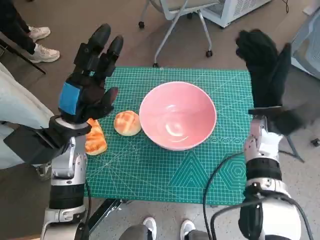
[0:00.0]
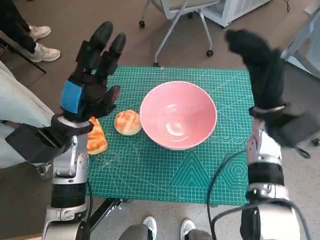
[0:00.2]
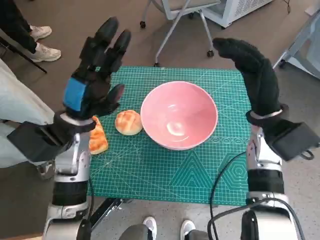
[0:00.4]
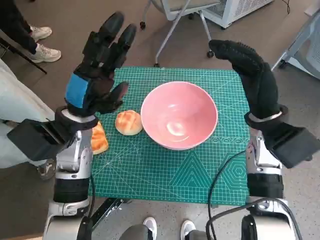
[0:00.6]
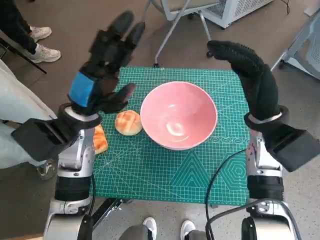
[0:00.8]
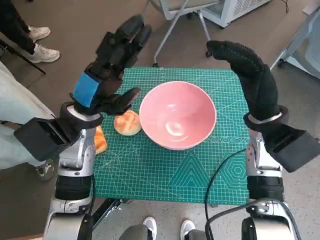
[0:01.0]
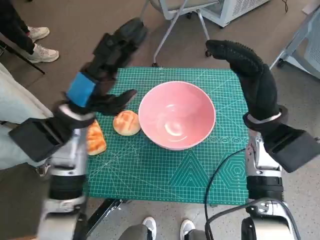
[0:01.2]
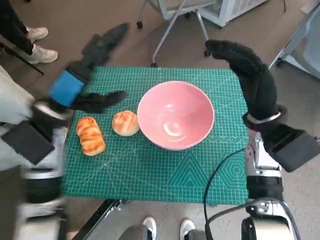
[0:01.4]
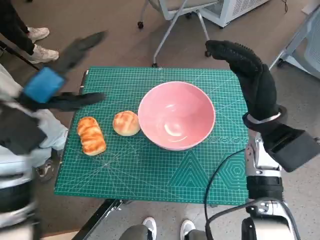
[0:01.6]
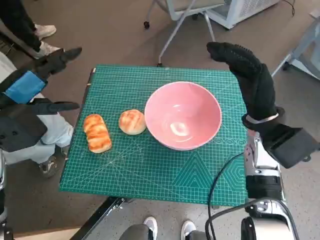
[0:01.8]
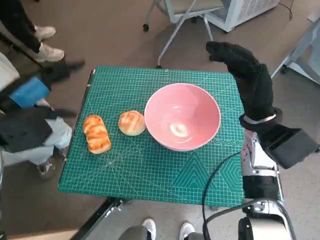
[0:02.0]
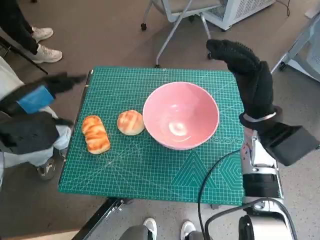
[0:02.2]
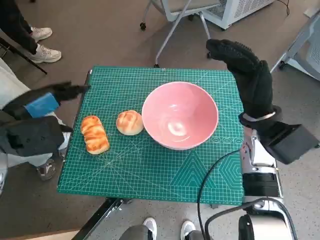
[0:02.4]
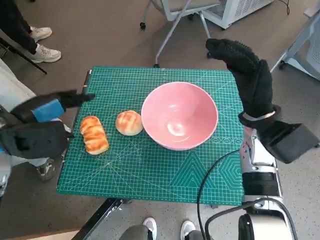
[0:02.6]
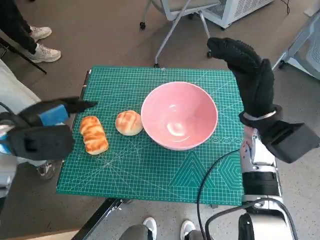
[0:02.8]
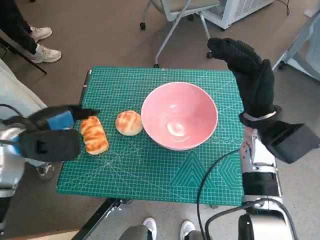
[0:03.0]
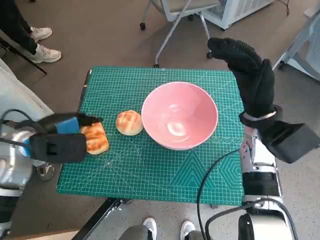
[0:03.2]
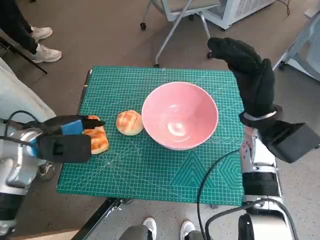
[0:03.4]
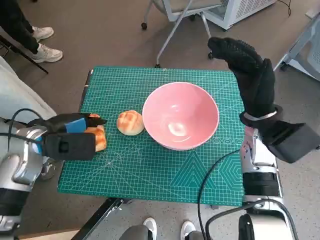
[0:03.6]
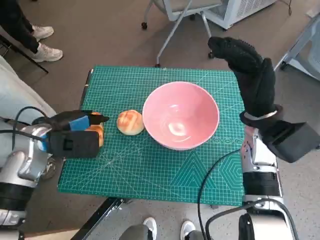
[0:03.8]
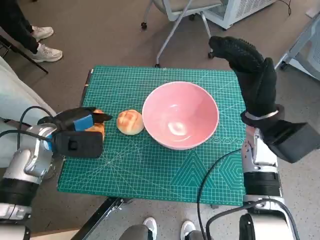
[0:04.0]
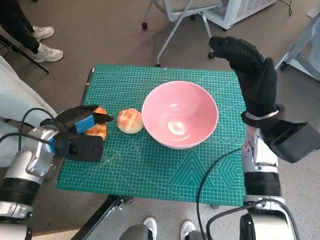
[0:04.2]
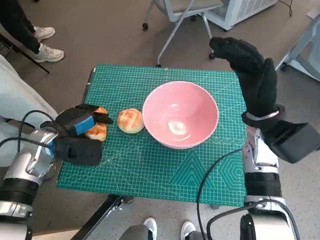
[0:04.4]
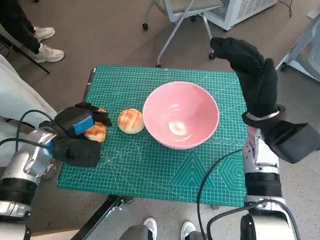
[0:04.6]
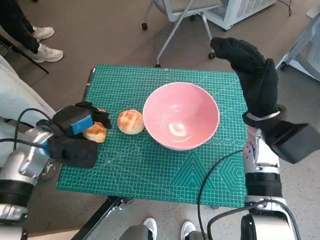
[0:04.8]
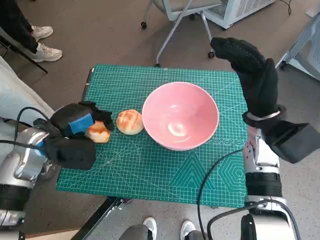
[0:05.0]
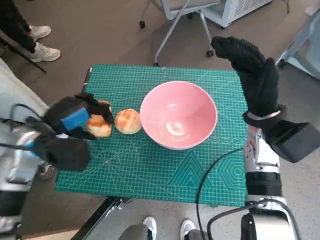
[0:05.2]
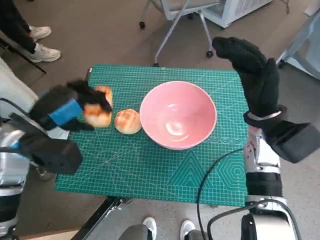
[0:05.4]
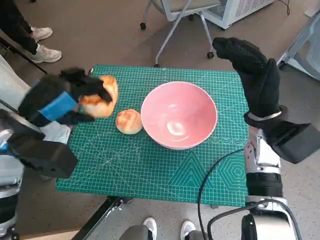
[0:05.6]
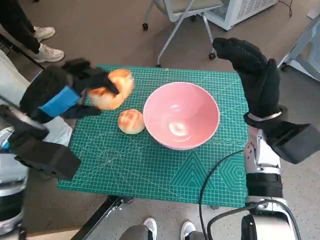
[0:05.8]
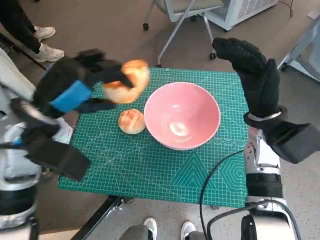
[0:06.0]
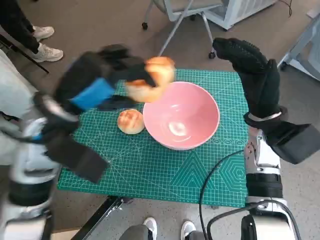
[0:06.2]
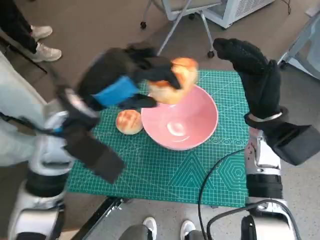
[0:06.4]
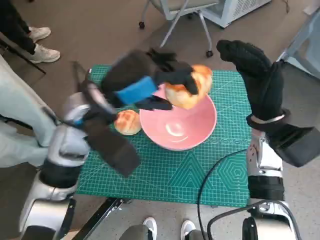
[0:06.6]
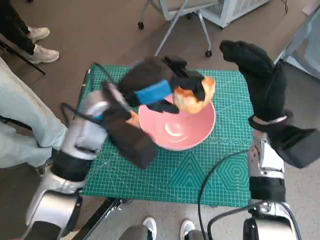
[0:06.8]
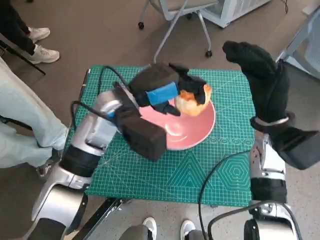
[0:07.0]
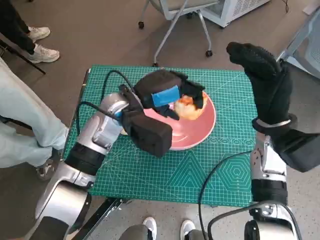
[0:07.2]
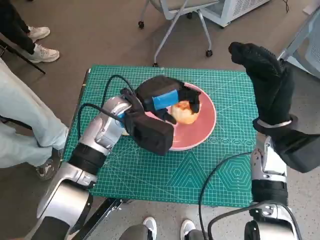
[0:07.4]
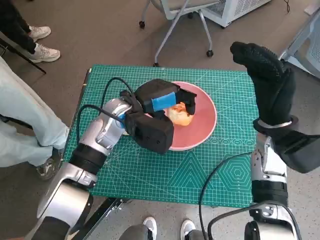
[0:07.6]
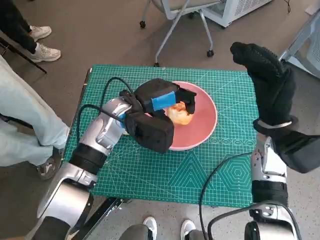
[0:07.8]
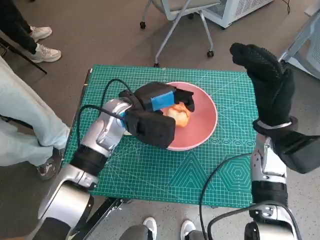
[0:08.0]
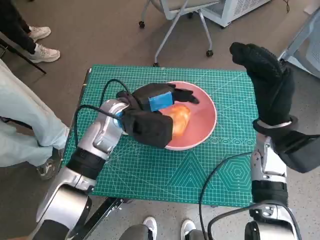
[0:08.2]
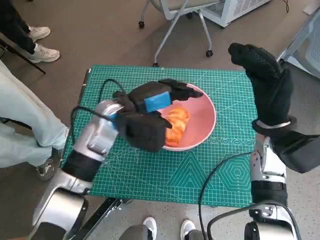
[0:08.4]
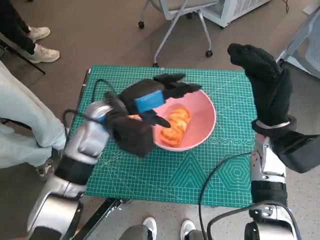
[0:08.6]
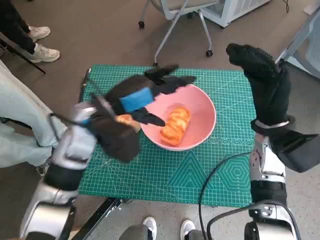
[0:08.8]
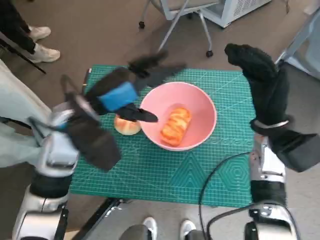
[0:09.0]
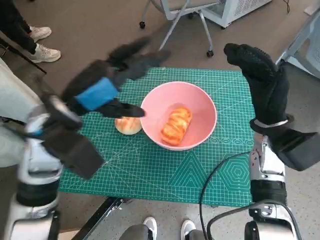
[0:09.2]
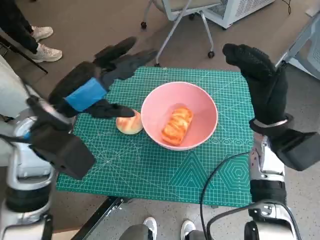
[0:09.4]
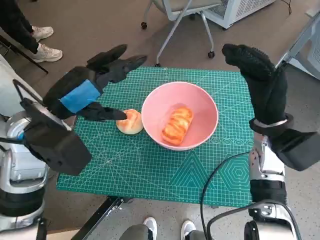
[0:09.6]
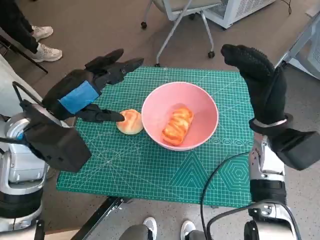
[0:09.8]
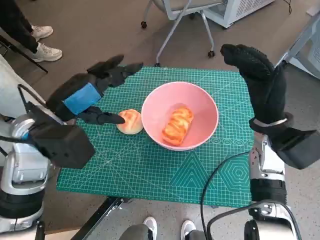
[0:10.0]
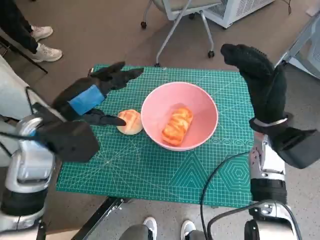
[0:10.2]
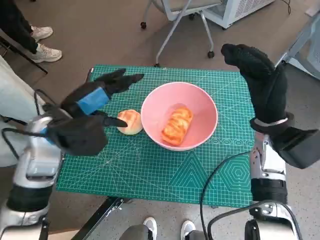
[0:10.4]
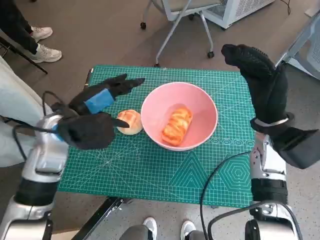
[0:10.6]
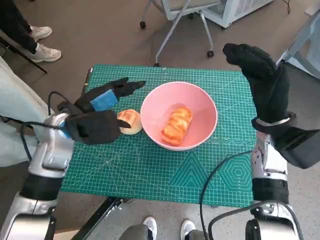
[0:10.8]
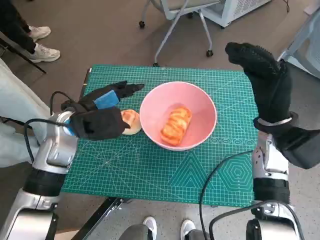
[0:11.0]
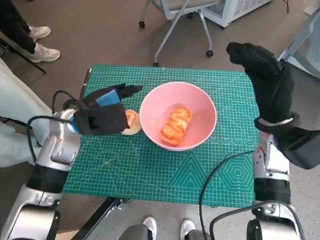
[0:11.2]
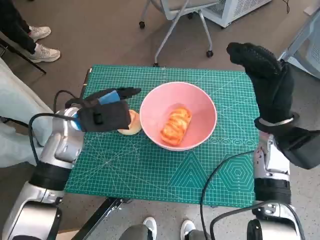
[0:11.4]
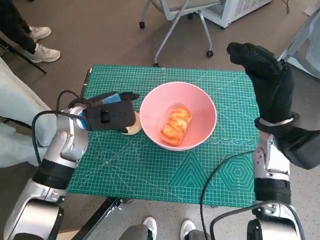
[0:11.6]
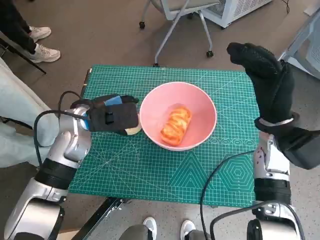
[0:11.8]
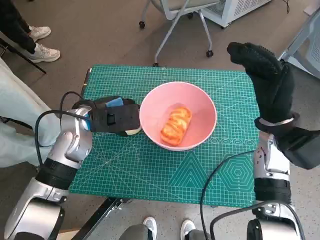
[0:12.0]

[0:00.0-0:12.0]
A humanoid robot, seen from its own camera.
Task of the whole recording: Push the bowl into the center of the table and put the bread into the bowl.
Step, 0:00.0 to 0:04.4: Grasp the long bread with left hand.
Step, 0:04.6 to 0:08.6: Place the long bread in pink bowl with left hand.
0:00.0 to 0:01.6: The right hand moves approximately 5 cm. The left hand is displaced upward by about 5 cm.
0:01.6 to 0:03.0: The left hand ends up approximately 5 cm from where it was.
0:03.0 to 0:04.4: The left hand moves downward, roughly 5 cm.
0:04.4 to 0:06.0: The left hand goes approximately 10 cm upward.
0:06.0 to 0:07.6: The left hand is displaced to the right, forward and downward by roughly 15 cm.
0:07.6 to 0:09.0: The left hand shifts about 10 cm to the left and upward.
0:09.0 to 0:10.4: The left hand ends up approximately 5 cm from where it was.
0:10.4 to 0:12.0: The left hand changes place by approximately 5 cm.

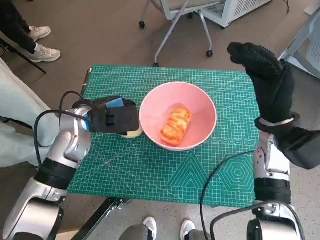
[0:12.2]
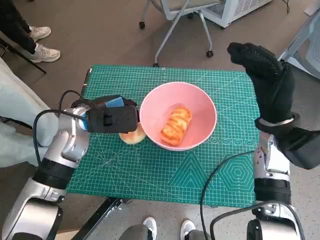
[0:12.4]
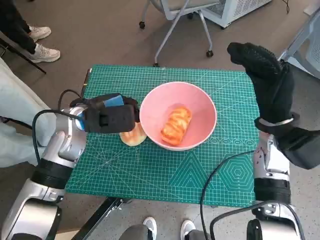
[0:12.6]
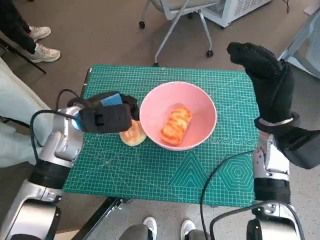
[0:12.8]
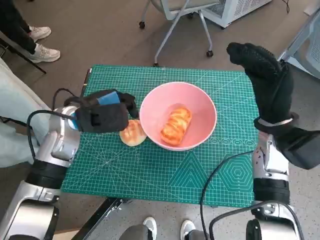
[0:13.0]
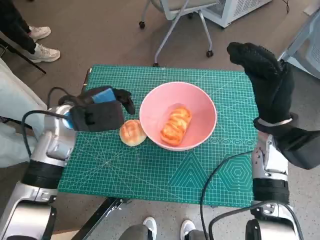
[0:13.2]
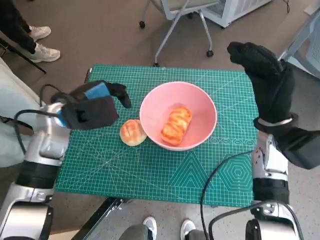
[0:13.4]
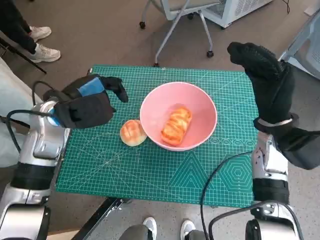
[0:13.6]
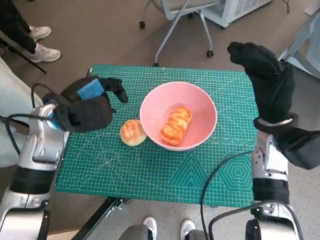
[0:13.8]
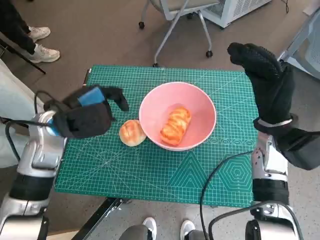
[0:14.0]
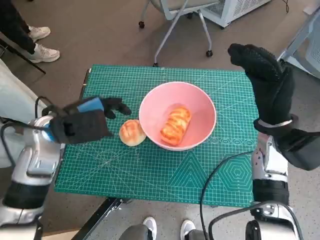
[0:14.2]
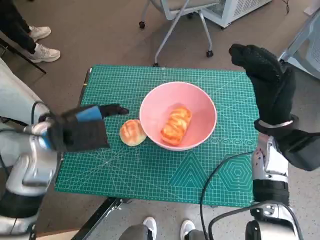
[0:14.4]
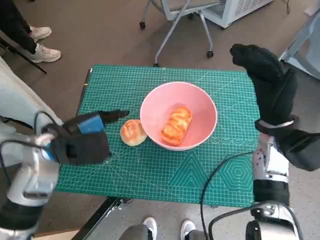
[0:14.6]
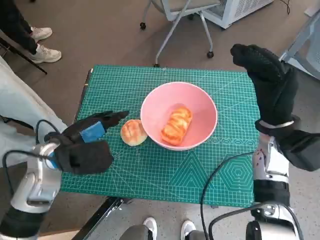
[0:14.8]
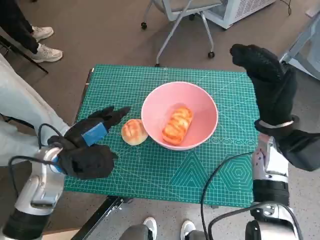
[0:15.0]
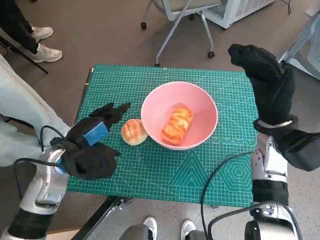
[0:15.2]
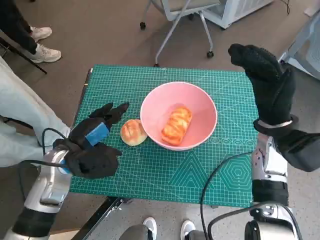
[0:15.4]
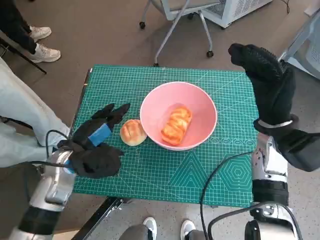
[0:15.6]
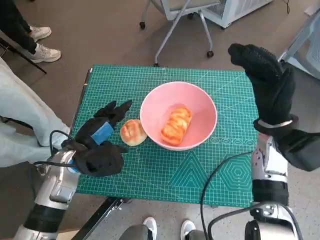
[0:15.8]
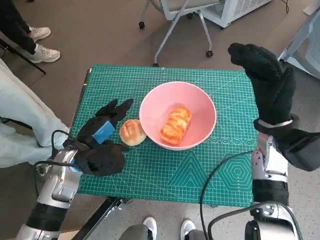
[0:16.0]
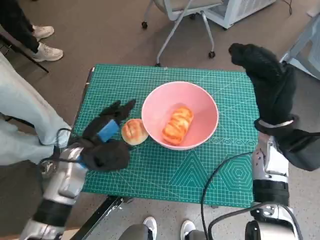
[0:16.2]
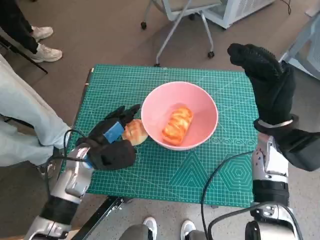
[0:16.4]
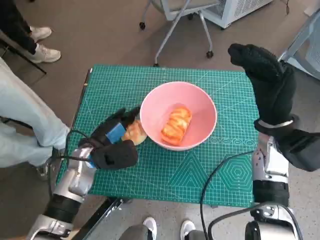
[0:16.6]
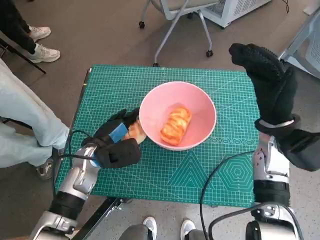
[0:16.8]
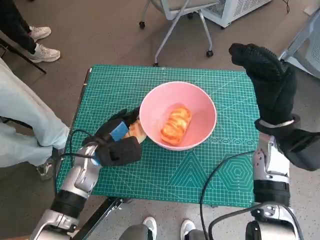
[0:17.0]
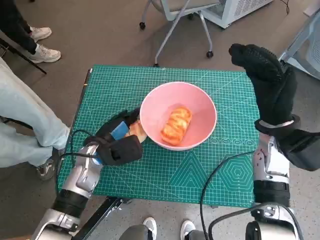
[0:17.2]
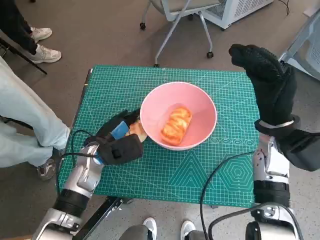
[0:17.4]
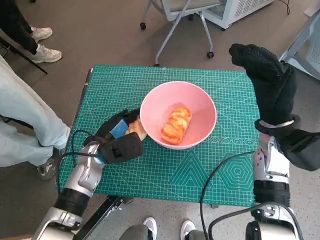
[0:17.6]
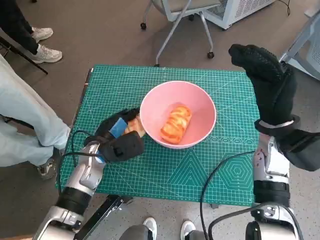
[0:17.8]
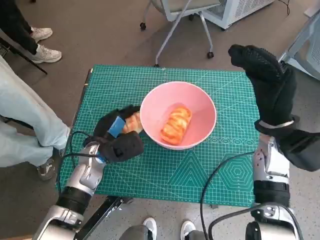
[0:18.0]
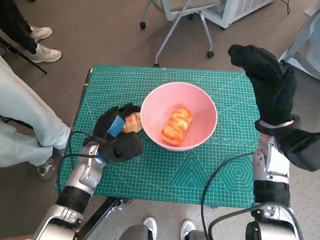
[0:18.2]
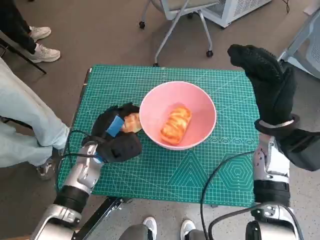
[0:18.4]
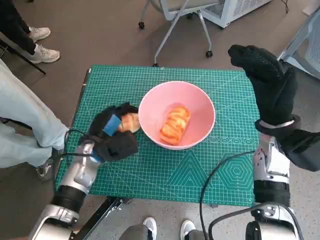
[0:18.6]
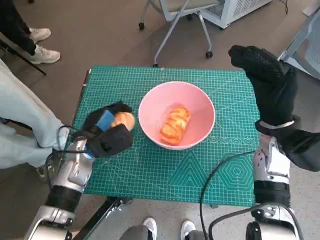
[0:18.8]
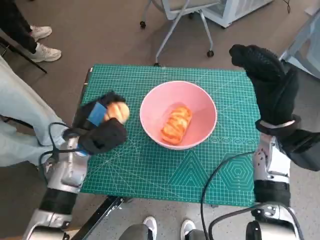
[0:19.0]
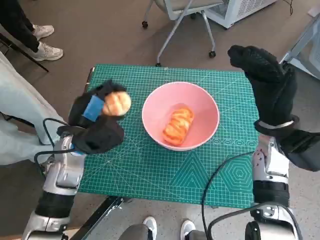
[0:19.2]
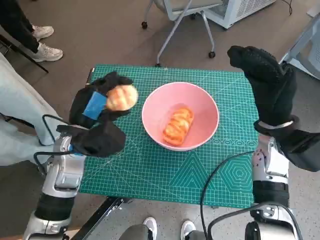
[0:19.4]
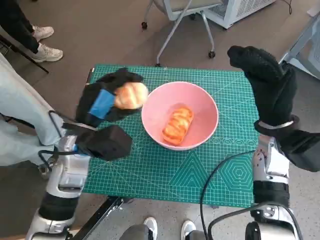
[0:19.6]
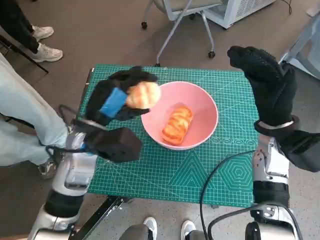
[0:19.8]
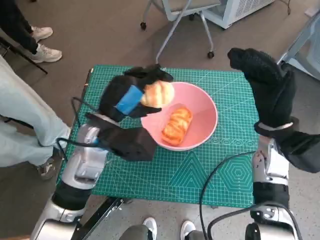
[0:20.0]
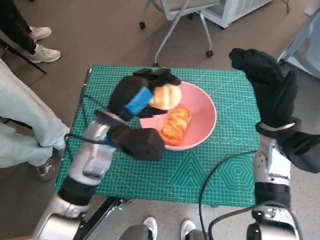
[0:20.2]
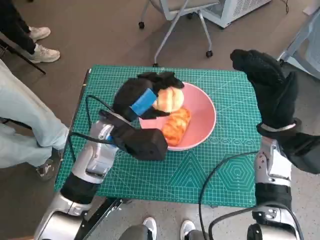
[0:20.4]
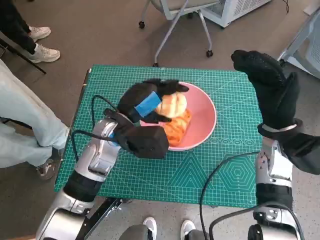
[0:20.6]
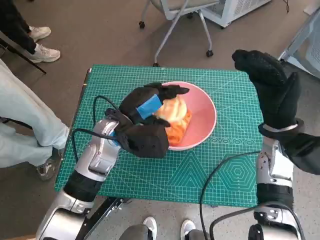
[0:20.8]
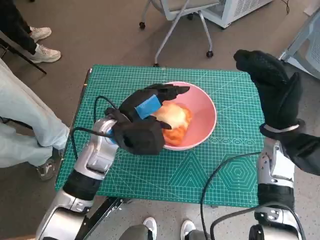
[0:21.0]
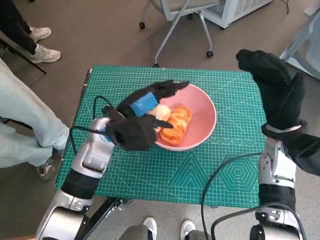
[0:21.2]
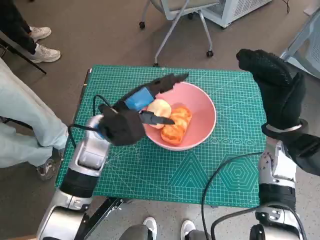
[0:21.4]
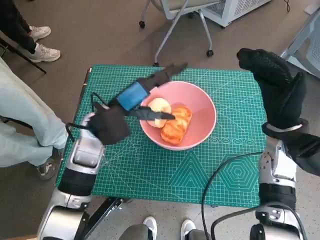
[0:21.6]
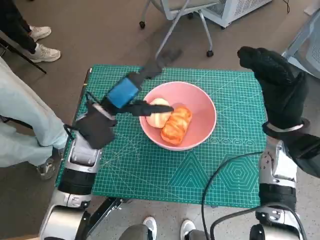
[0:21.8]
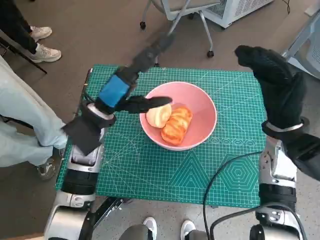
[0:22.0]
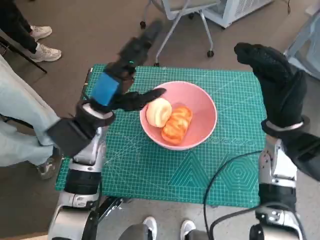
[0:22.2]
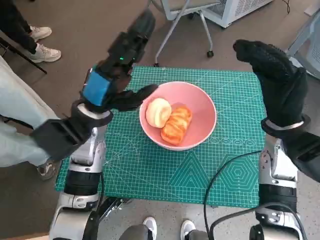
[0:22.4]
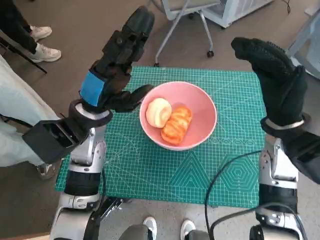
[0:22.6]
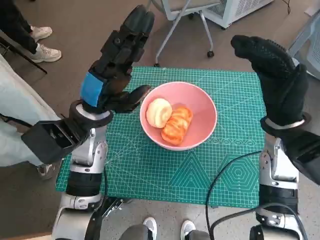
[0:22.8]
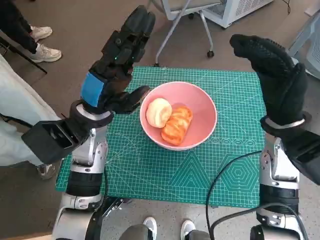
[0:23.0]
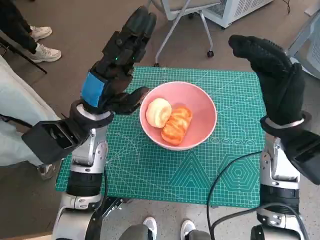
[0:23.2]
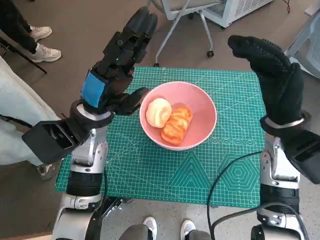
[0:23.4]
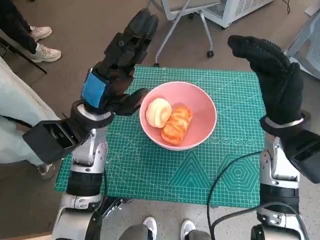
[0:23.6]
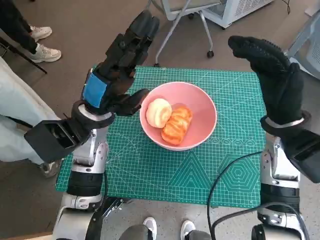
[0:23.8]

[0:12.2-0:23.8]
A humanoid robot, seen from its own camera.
Task of the whole recording: Push the bowl into the center of the table and put the bread into the bowl.
Step, 0:12.2 to 0:18.0: Grasp the round bread with left hand.
Step, 0:18.2 to 0:21.4: Place the round bread in pink bowl with left hand.
0:12.2 to 0:13.6: The left hand ends up roughly 5 cm from where it was.
0:13.6 to 0:15.0: The left hand moves backward, roughly 5 cm.
0:15.0 to 0:16.6: The left hand moves downward, some 5 cm.
0:16.6 to 0:18.0: The hands move only a little.
0:18.0 to 0:19.4: The left hand shifts about 10 cm upward.
0:19.4 to 0:21.0: The left hand goes roughly 5 cm to the right.
0:22.4 to 0:23.8: The hands move only a little.
